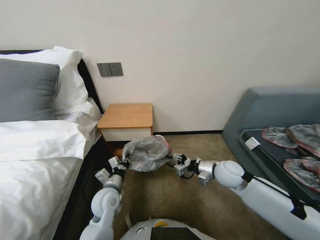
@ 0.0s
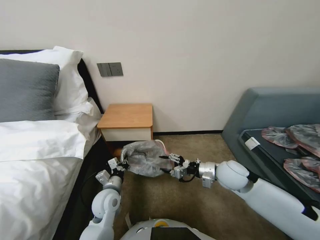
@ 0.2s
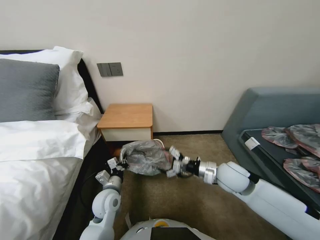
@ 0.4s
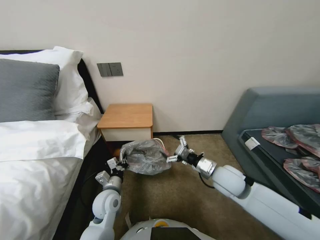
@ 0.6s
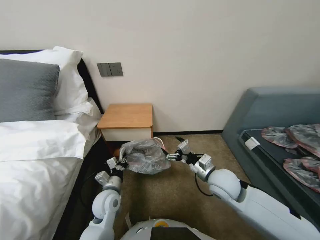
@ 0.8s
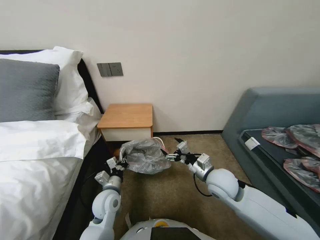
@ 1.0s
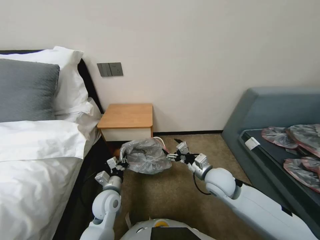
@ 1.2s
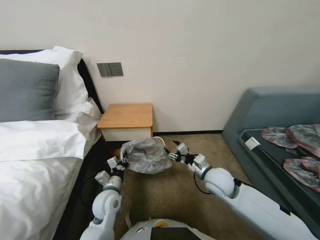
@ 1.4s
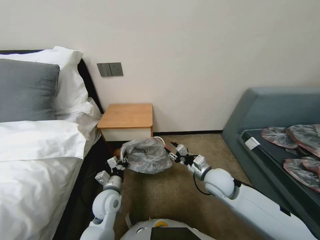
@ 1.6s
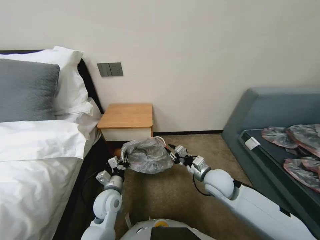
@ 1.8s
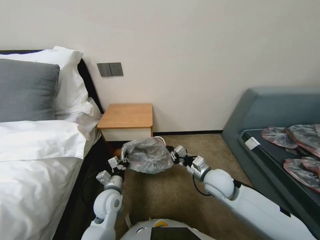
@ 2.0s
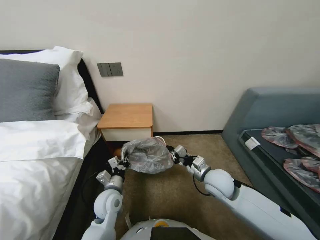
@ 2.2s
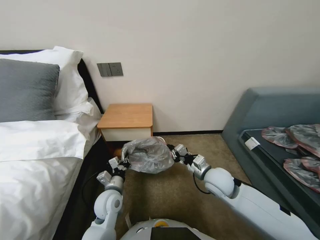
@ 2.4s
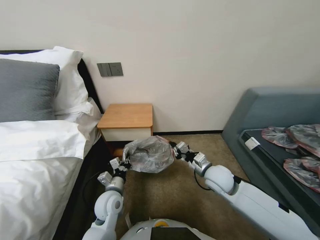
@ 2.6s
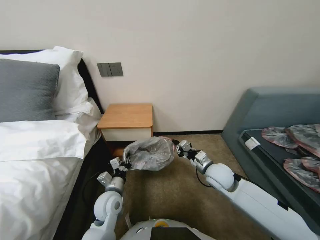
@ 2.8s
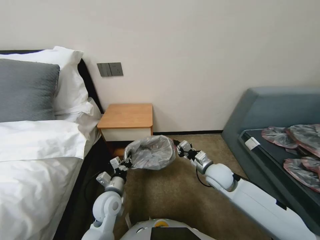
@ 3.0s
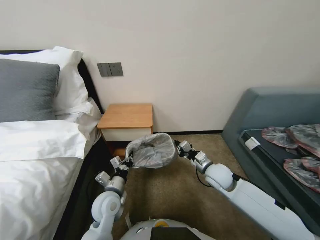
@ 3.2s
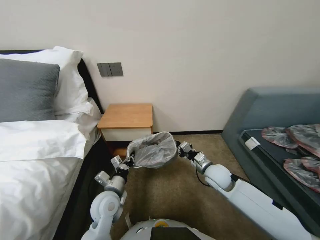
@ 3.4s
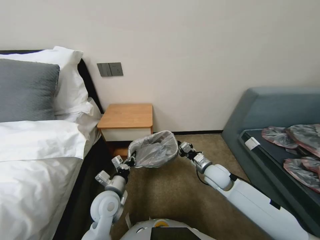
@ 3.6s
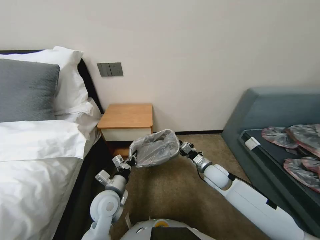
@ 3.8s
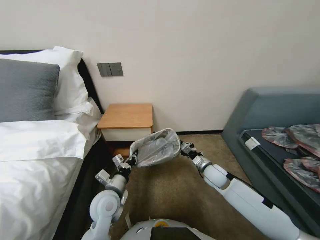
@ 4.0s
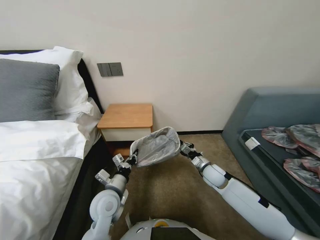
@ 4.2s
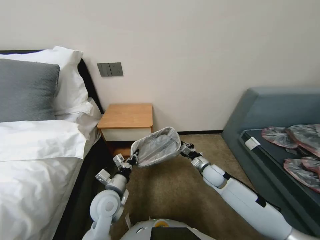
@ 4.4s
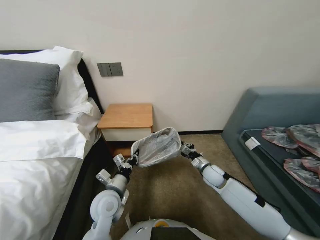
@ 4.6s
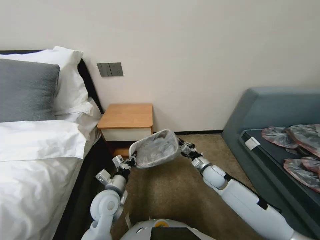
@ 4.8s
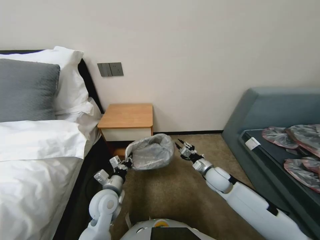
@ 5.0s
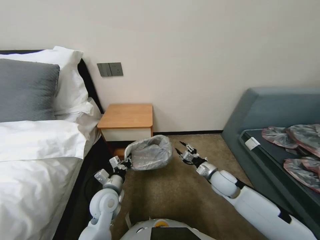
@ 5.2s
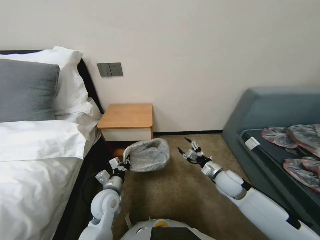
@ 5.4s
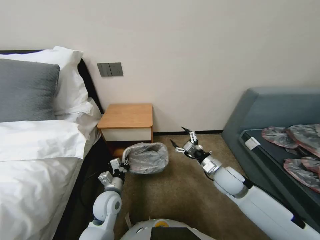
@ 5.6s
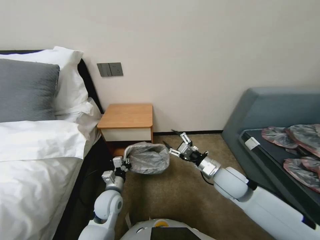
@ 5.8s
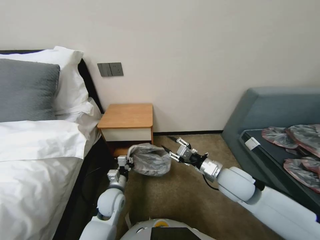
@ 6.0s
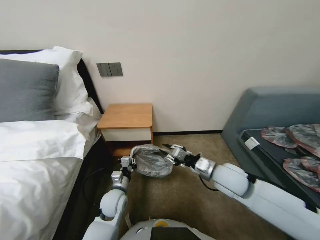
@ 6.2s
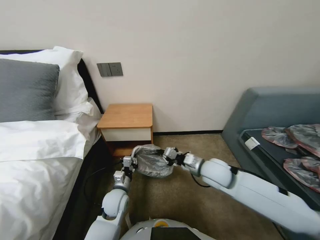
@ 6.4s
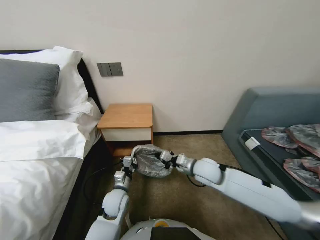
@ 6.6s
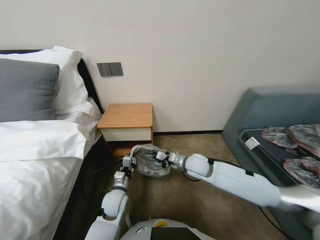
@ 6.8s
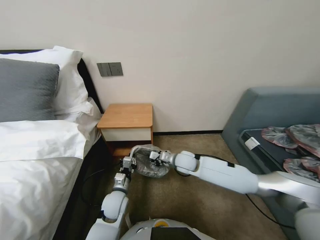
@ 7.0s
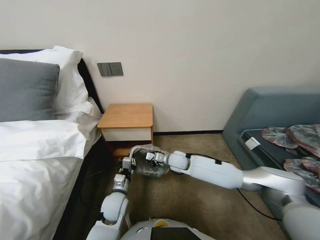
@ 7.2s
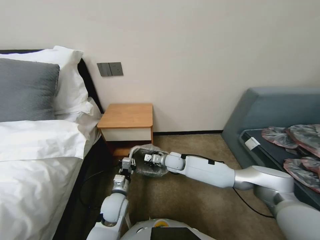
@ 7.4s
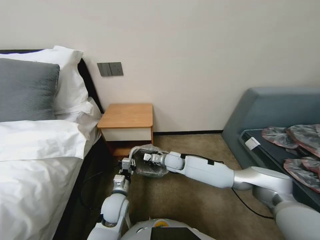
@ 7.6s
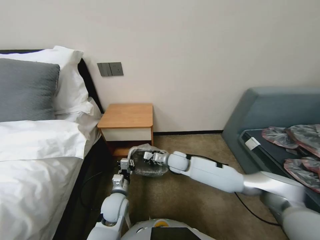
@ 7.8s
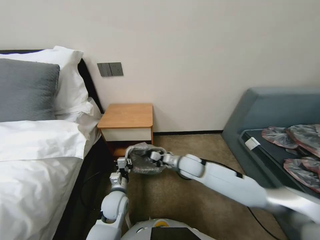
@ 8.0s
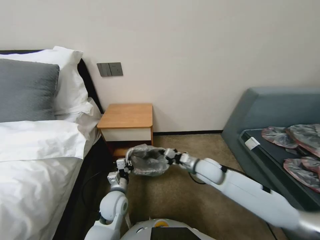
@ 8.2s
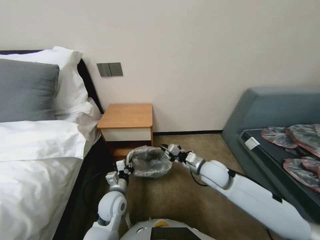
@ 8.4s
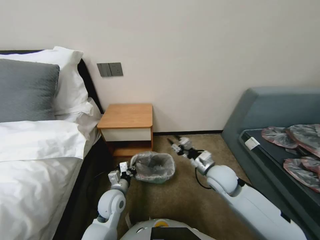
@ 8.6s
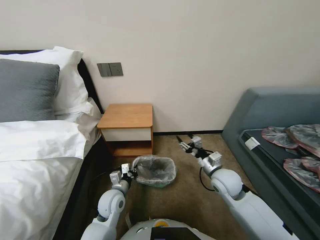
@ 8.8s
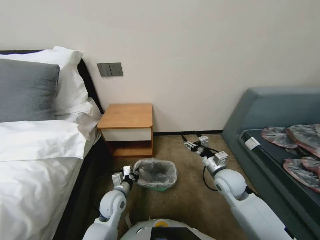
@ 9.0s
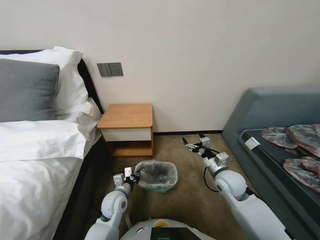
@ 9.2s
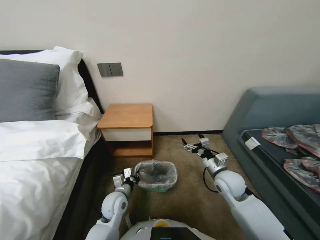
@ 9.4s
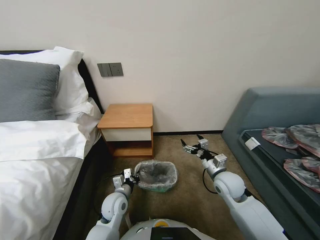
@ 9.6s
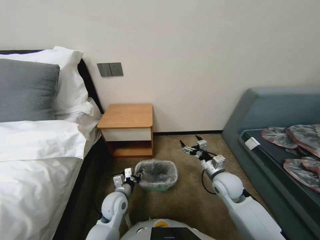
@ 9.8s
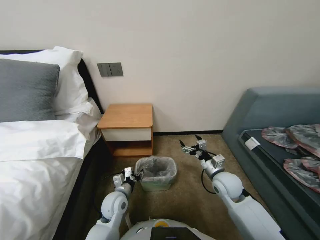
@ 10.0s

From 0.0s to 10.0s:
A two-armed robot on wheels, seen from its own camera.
Task of the whole recording: Pick up the garbage bag from the table and place it over the trash can.
From 0.0s to 1.4s: The right gripper travels to the left by about 5 cm, and opens up.
From 1.4s to 2.8s: The right gripper closes up.
From 2.8s to 4.2s: The right gripper shifts roughly 10 cm downward.
From 4.2s to 5.8s: The right gripper heads upward and backward, covering about 10 cm, and opens its fingers.
From 5.8s to 7.2s: The right gripper moves to the left and forward, approximately 15 cm, and closes.
From 7.2s to 8.6s: The right gripper heads to the right and backward, covering about 15 cm.
From 8.6s to 10.0s: The right gripper changes place by approximately 5 cm, and opens. Meanwhile the left gripper opens up.

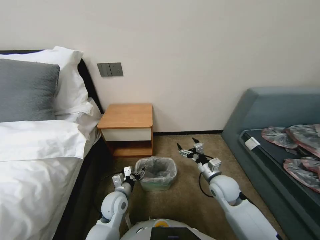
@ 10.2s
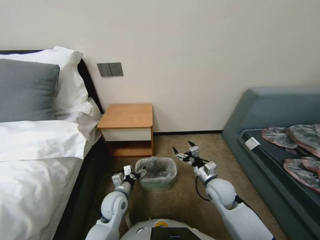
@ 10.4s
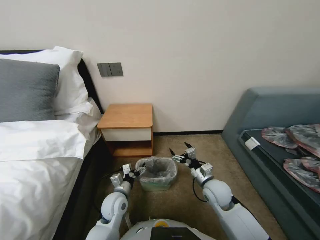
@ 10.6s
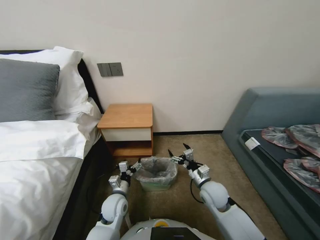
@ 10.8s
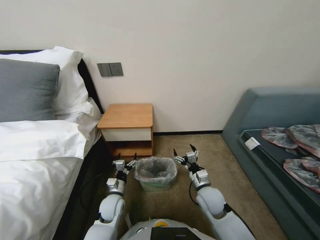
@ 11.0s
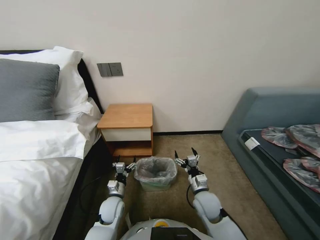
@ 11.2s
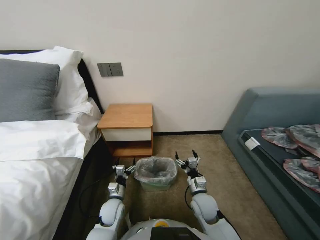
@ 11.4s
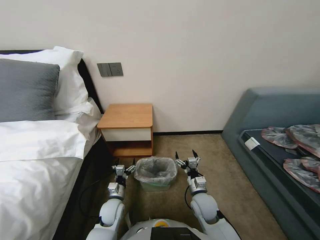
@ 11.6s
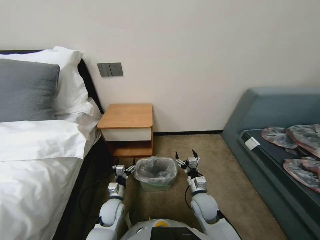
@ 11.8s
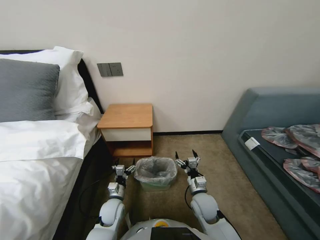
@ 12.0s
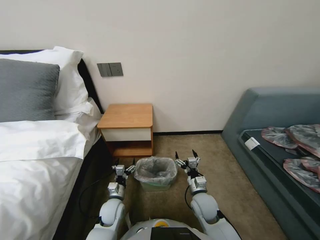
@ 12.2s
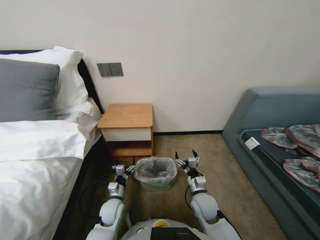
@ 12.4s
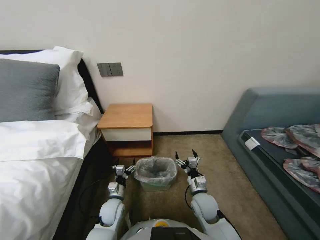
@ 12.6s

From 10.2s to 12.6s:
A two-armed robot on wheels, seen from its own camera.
Task of the whole recording: Pick up the garbage bag from the table and place it over the trash can.
From 10.2s to 11.4s: The left gripper is displaced downward by roughly 5 cm. The right gripper heads downward, to the left and backward, covering approximately 10 cm.
From 11.4s to 12.6s: Both grippers stay put.

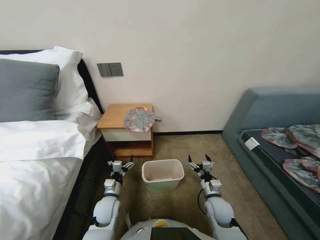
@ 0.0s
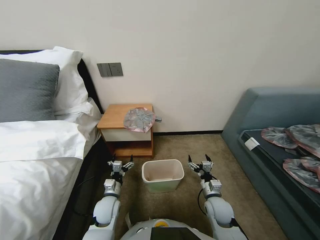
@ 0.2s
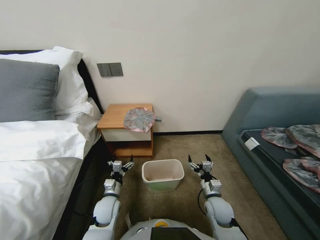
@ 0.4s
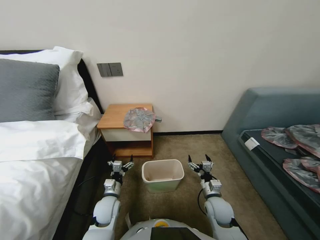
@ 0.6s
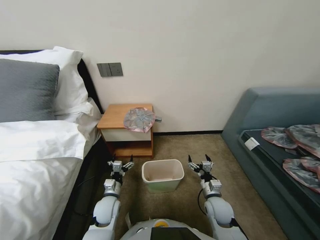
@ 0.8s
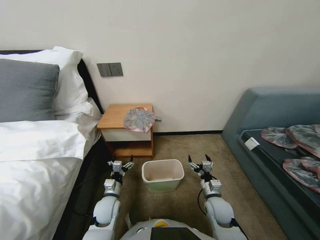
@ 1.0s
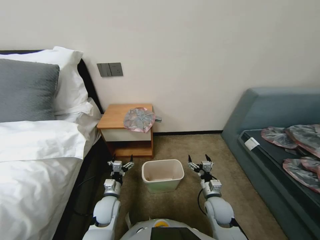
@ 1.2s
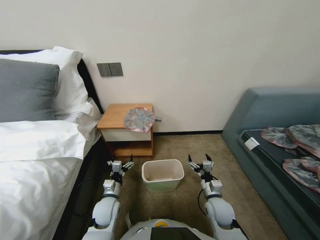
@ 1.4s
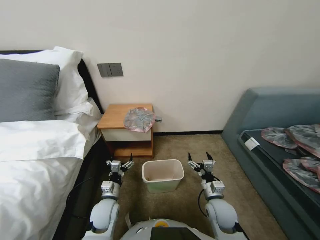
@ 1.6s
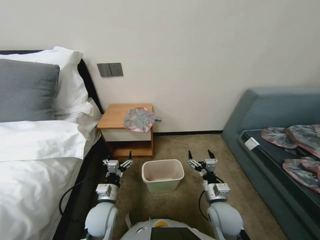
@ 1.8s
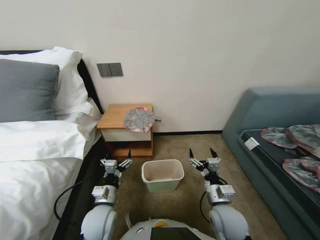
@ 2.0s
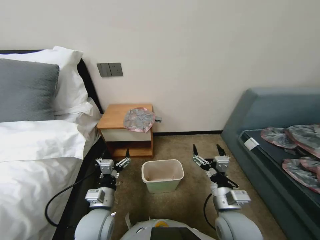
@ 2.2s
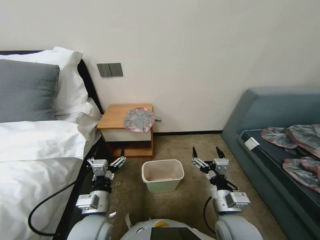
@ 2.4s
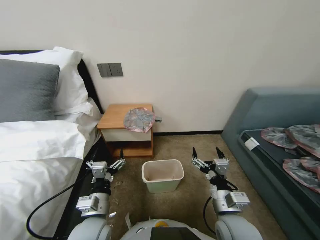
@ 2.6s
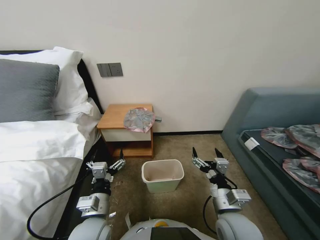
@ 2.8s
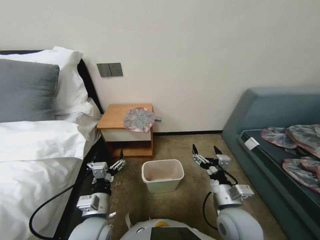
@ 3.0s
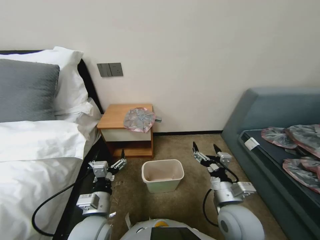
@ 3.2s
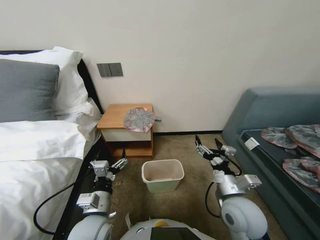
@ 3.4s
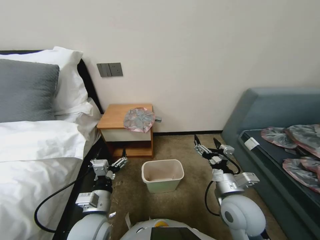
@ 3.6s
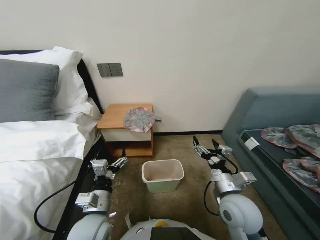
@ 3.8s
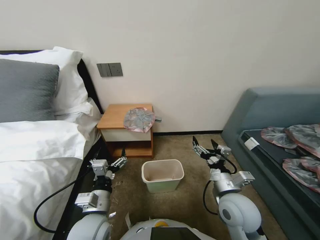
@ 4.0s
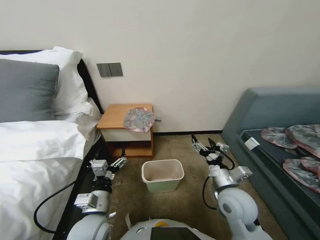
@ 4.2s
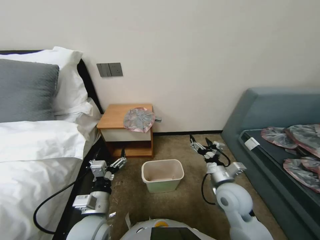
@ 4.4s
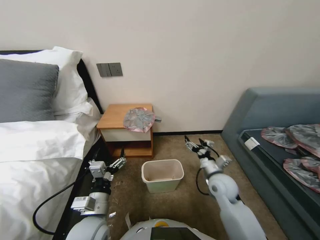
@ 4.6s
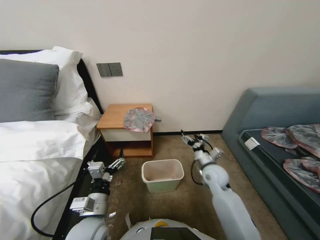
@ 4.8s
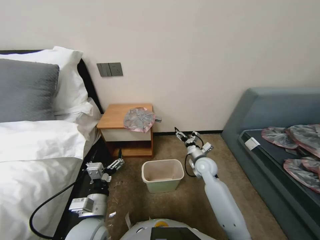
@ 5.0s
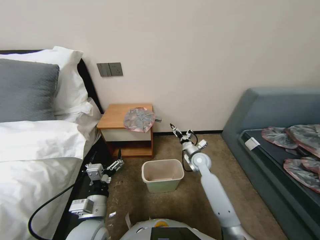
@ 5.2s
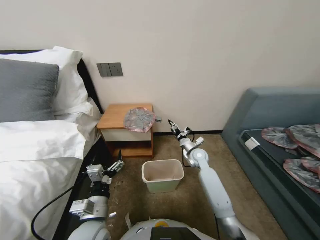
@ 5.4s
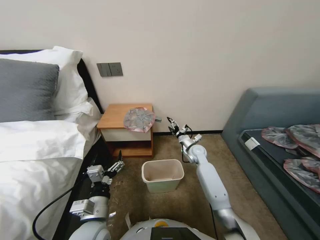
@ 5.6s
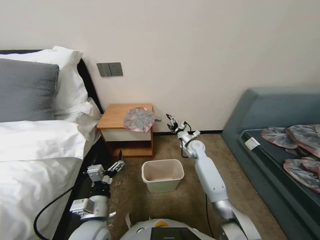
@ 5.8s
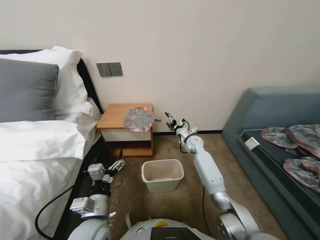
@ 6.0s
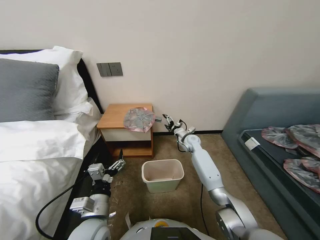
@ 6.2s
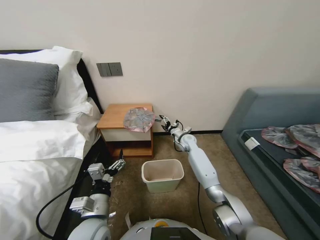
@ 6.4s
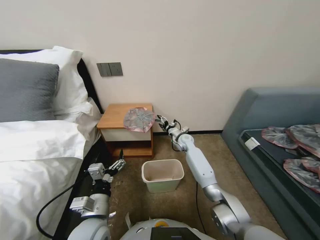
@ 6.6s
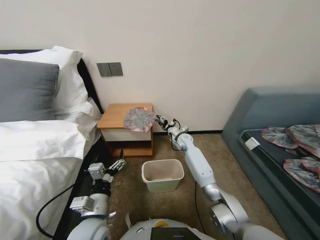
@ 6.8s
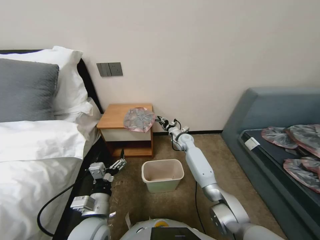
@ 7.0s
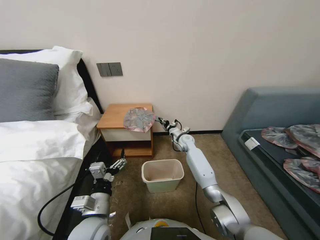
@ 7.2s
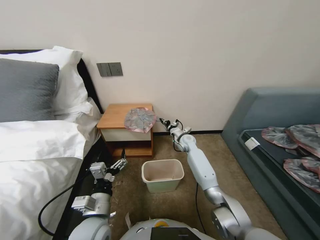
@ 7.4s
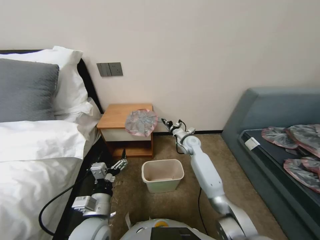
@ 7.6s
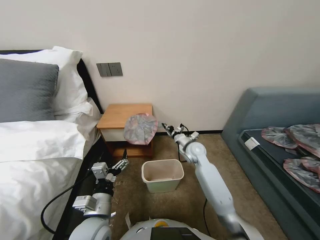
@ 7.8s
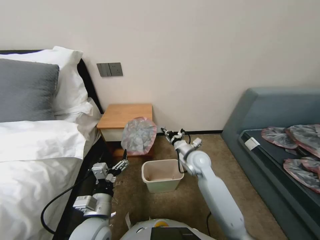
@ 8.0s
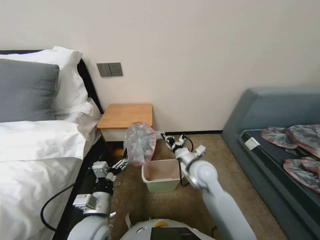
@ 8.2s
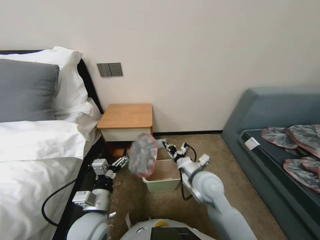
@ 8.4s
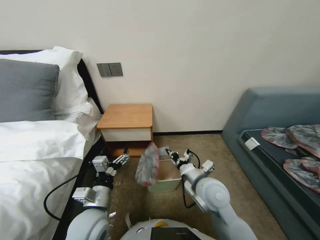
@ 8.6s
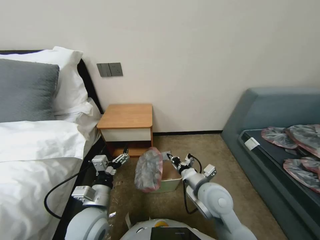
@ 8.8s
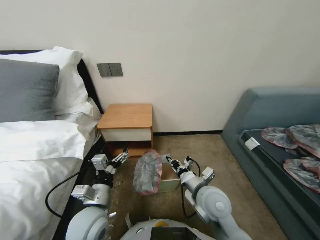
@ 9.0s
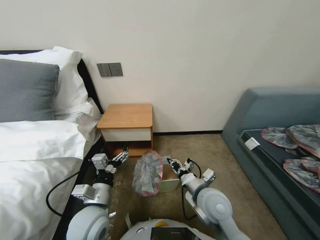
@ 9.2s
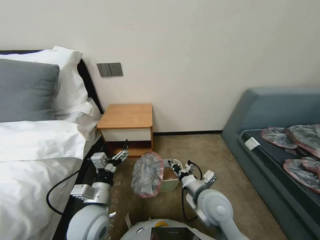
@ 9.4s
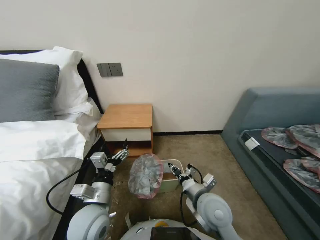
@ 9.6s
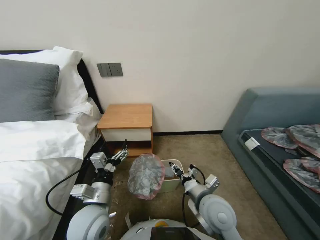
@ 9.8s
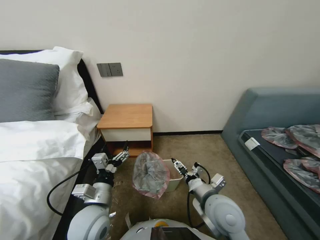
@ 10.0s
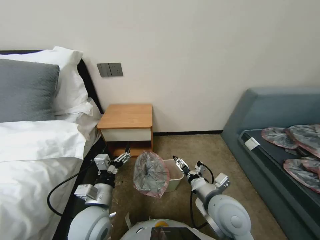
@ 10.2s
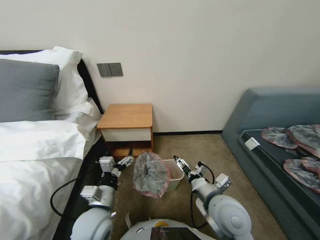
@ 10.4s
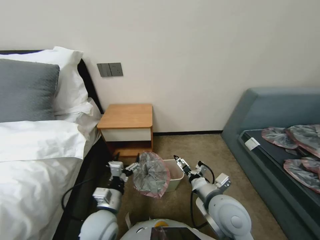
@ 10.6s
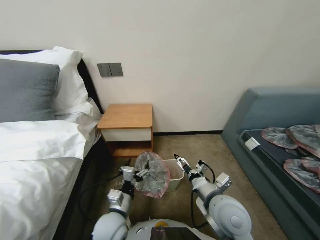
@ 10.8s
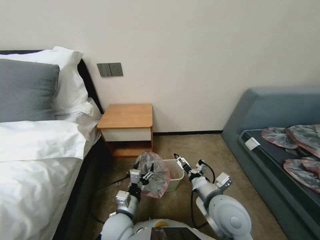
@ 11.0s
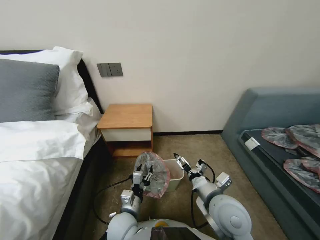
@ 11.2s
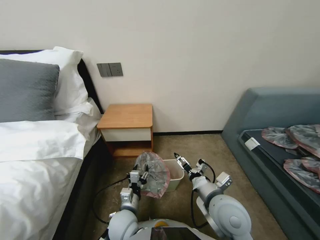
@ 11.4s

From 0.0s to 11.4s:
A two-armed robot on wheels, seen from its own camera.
Task of the whole recording: Pick up the garbage bag from the table and place it over the trash can.
From 1.4s to 2.8s: Both grippers travel together upward and backward, roughly 15 cm.
From 2.8s to 4.2s: The right gripper goes some 5 cm forward.
From 4.2s to 5.6s: The right gripper heads forward, covering about 25 cm.
From 5.6s to 7.2s: The right gripper heads forward, covering approximately 10 cm, and closes its fingers.
From 7.2s to 8.6s: The right gripper shifts approximately 30 cm backward.
From 8.6s to 10.0s: The right gripper goes approximately 5 cm backward, and opens its fingers.
From 10.0s to 11.4s: The left gripper travels downward and to the right by roughly 10 cm, and closes; the right gripper opens its fingers.
